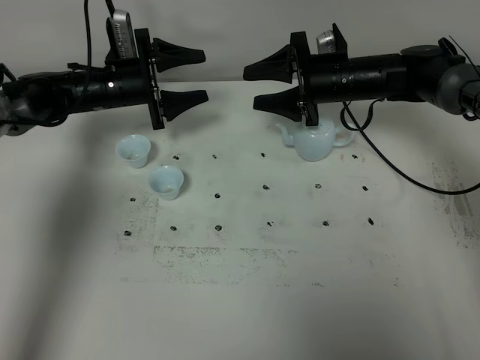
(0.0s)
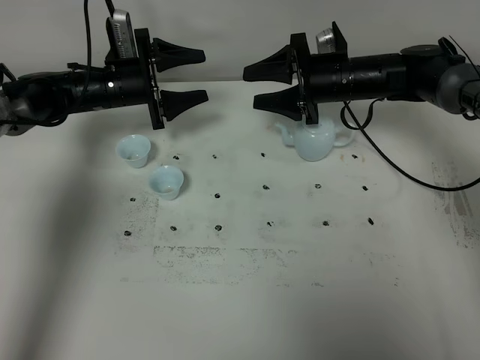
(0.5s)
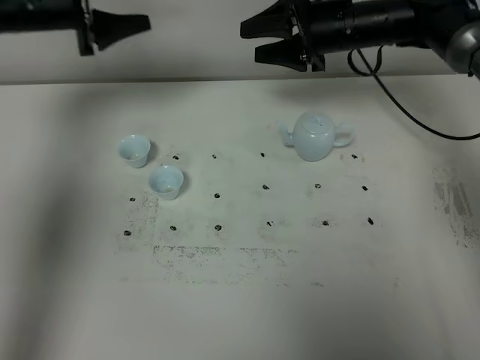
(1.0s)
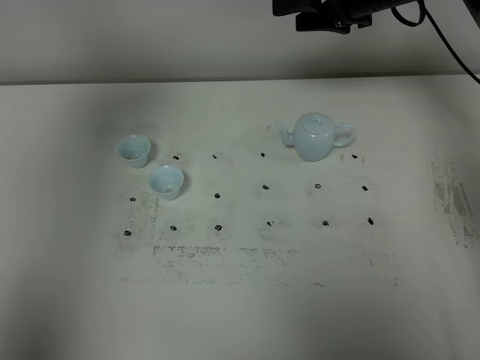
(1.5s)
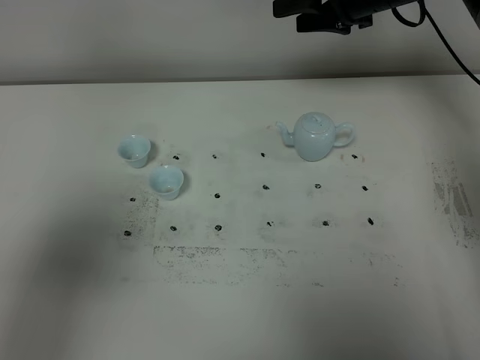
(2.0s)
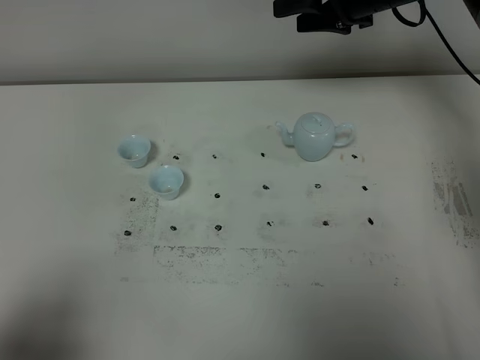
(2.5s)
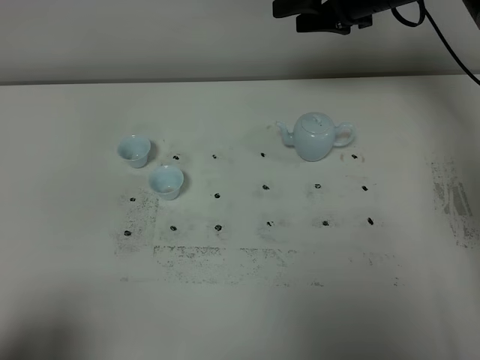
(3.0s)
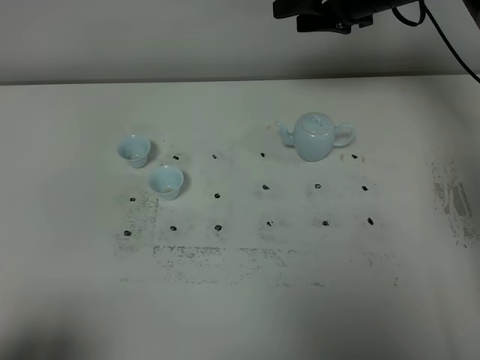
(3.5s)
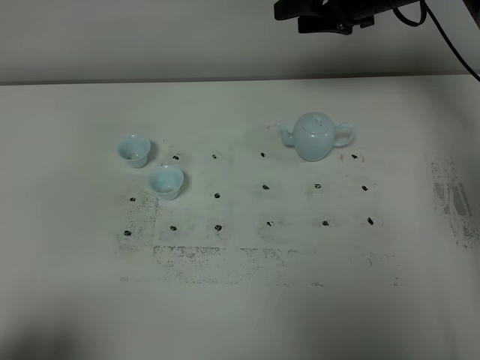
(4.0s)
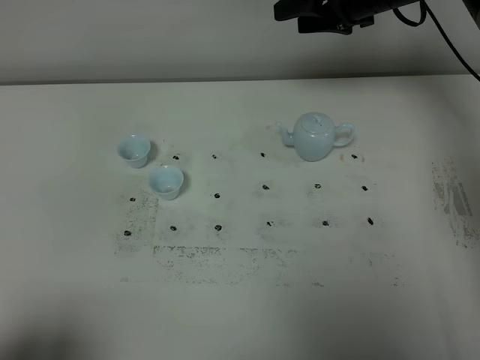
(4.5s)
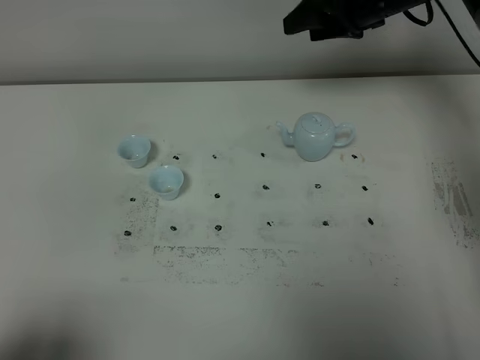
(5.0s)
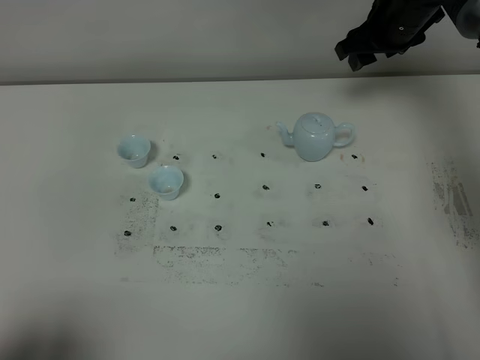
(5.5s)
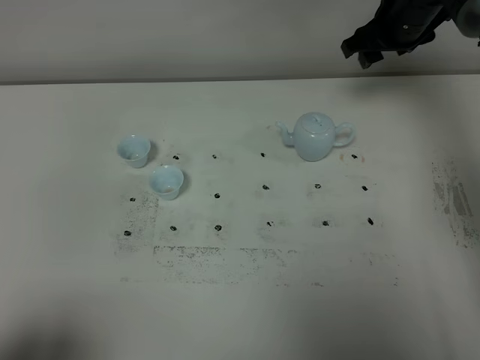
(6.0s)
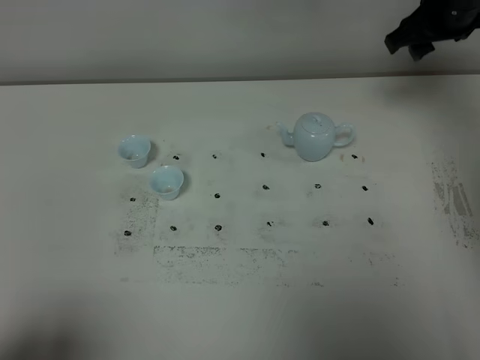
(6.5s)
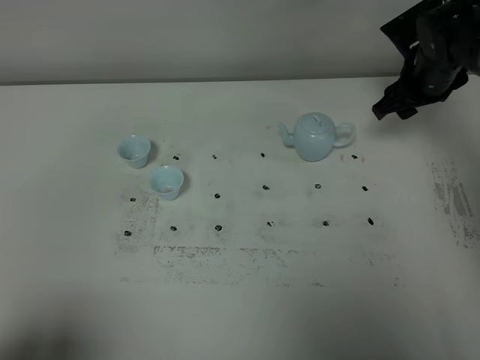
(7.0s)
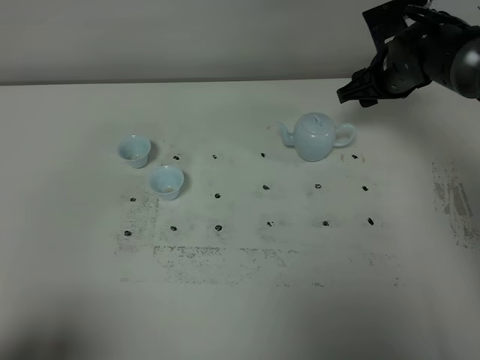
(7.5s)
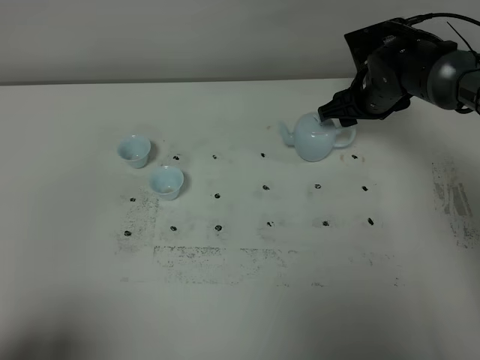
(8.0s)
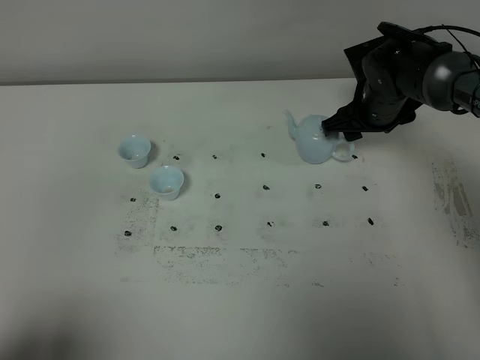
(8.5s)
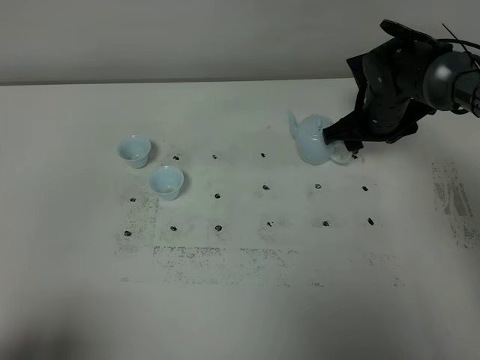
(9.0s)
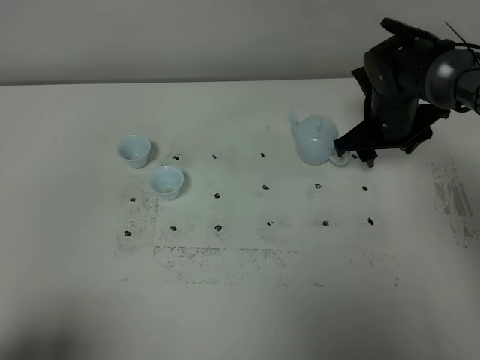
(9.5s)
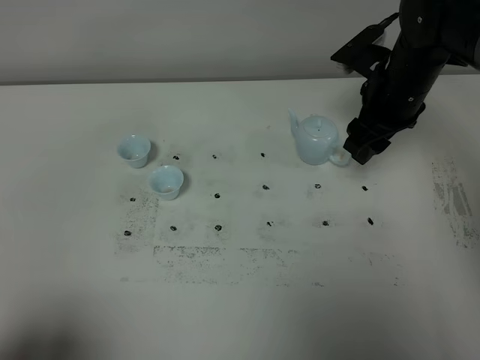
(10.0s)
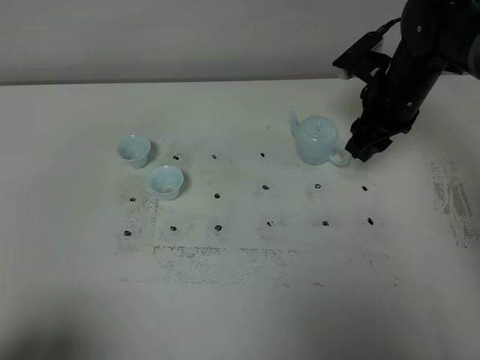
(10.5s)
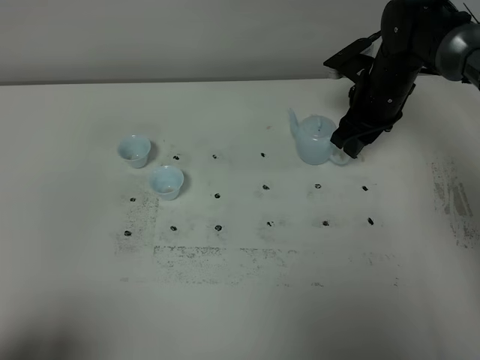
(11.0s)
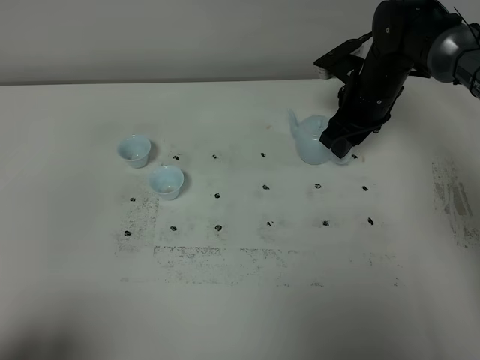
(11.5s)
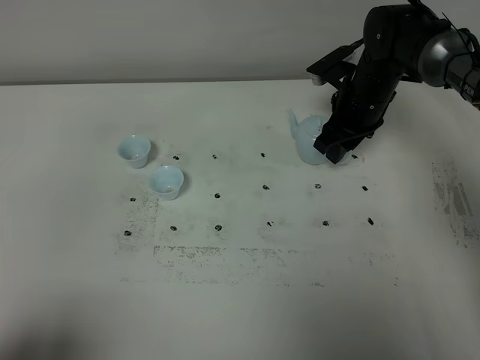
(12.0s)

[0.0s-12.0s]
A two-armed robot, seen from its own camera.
Task of the whole recording: grasp the blue porcelain teapot and pour the tea into the two blue porcelain teacups one by one, put the blue porcelain teapot back in its original place.
0.0s to 2.0s: The right gripper goes roughly 10 cm upward. The left gripper heads backward and upward, covering roughly 50 cm.
2.0s to 4.0s: The left gripper is displaced downward and backward by some 15 cm.
4.0s to 6.0s: The right gripper moves about 5 cm.
6.0s to 8.0s: The right gripper heads downward, covering approximately 10 cm.
8.0s to 10.0s: The right gripper heads upward and backward, covering approximately 10 cm.
10.0s to 12.0s: The right gripper goes some 10 cm downward and forward.

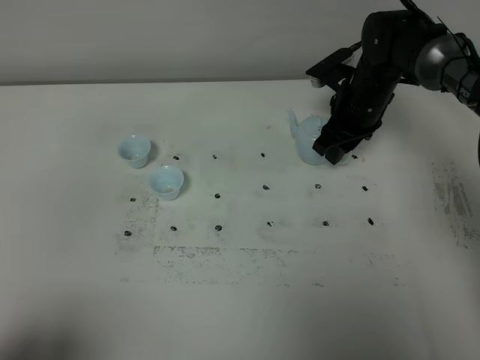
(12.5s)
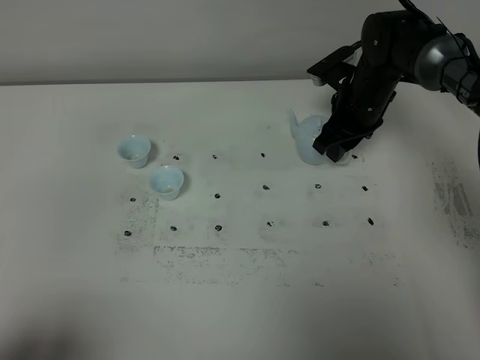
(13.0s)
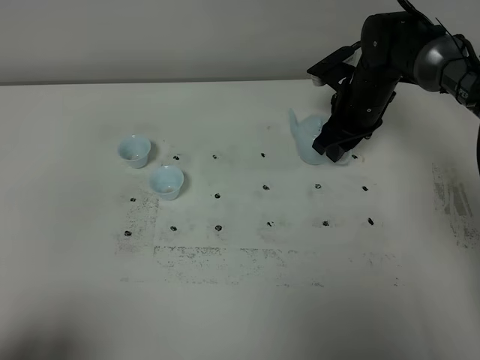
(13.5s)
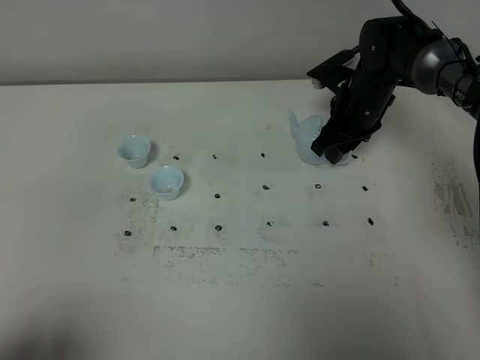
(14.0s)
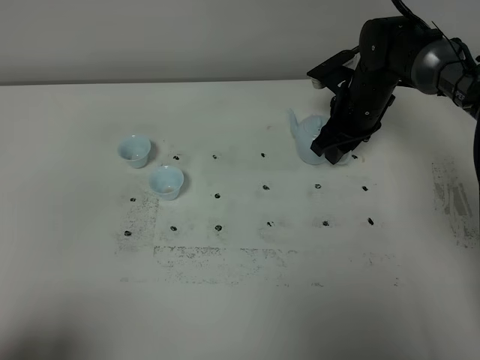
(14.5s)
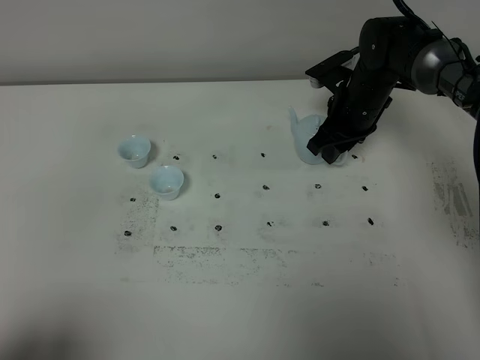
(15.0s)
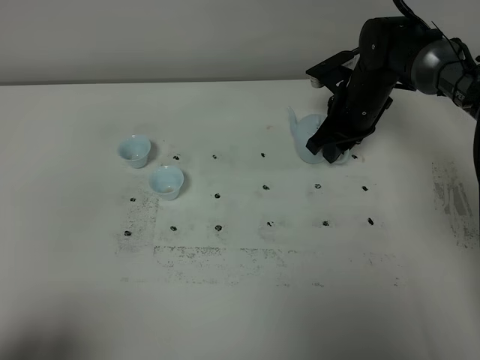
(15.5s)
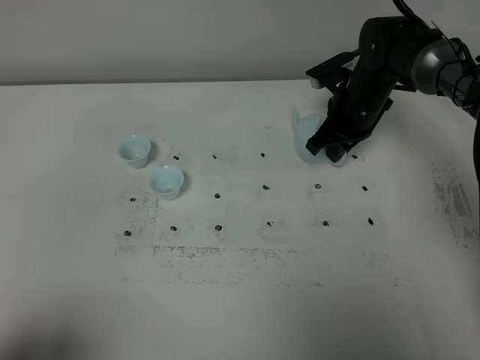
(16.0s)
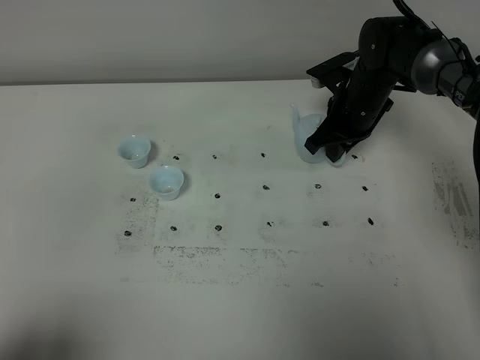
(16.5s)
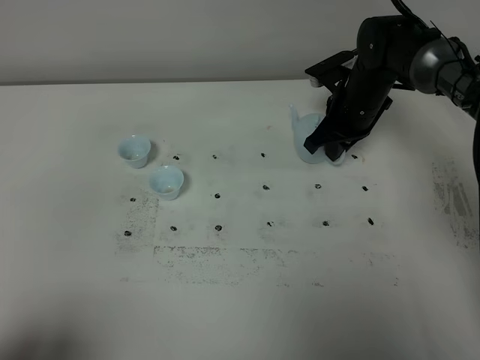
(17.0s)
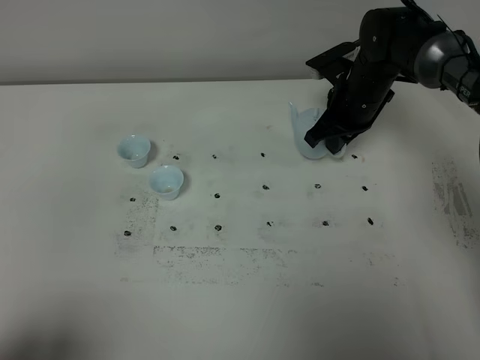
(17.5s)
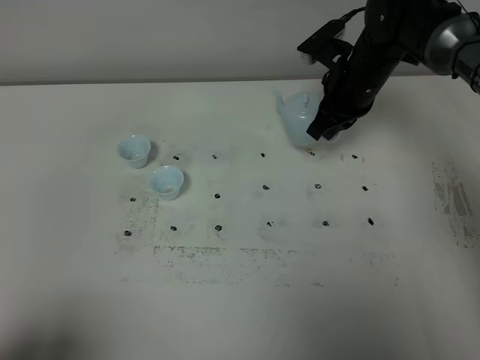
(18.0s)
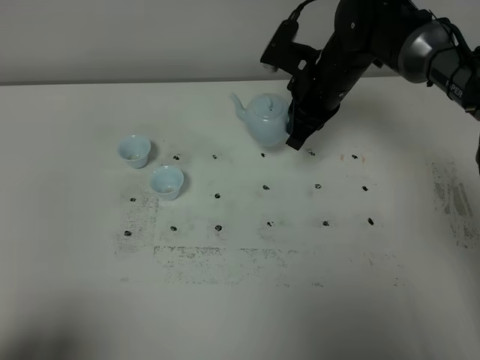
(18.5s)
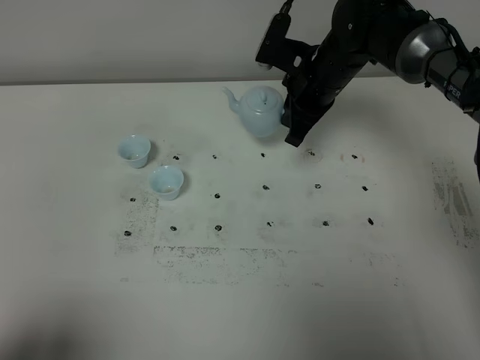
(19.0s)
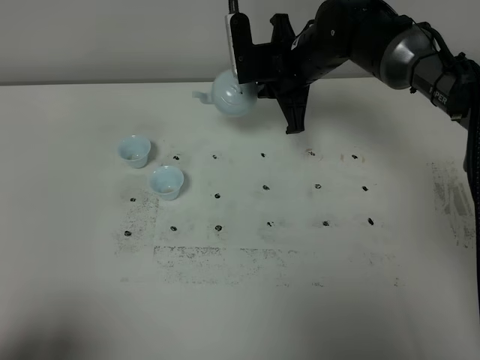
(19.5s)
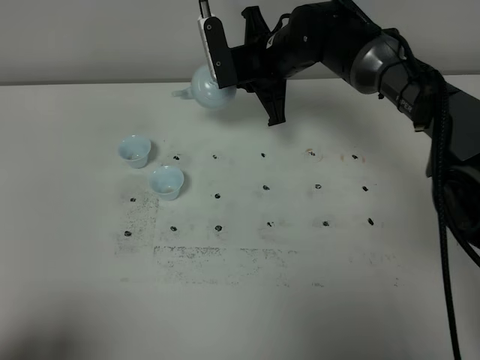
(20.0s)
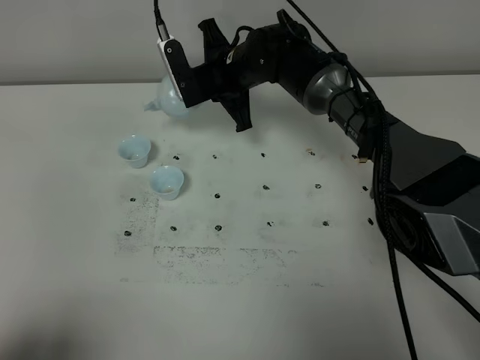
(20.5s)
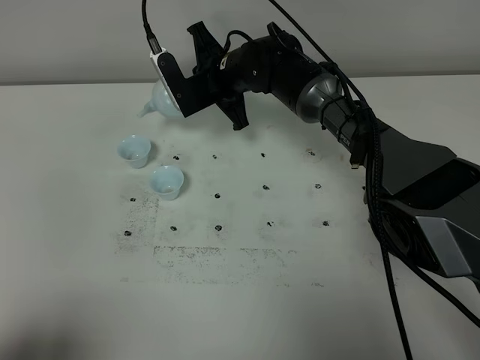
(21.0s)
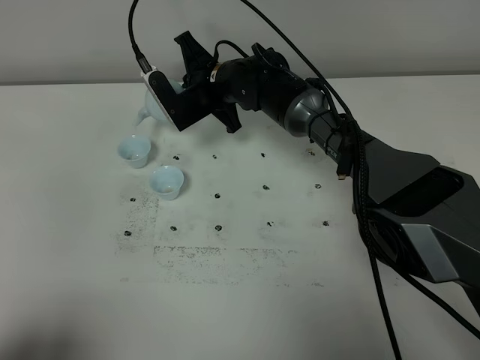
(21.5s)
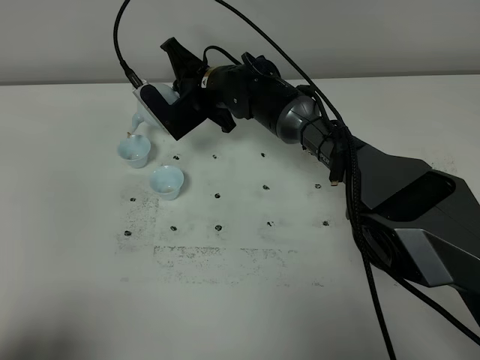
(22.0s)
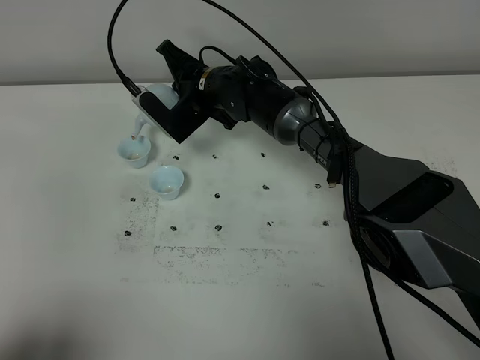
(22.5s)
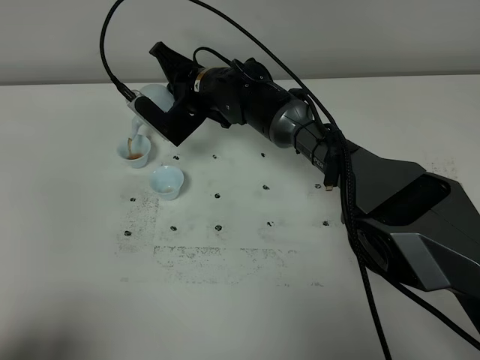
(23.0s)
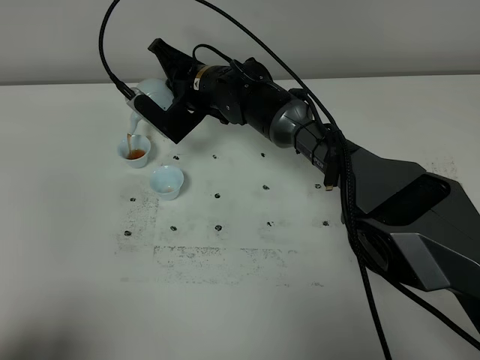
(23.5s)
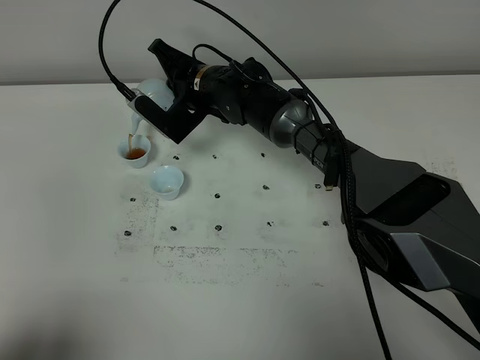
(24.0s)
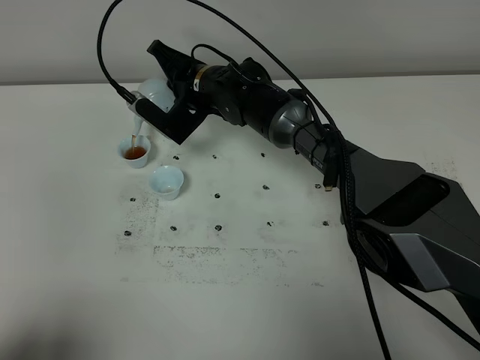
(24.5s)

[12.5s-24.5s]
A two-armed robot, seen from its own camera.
Task of the whole recording: grasp the blue porcelain teapot and pour the tea into the two blue porcelain teacups one by one, put the blue porcelain teapot back in its original place.
Step, 12.5s to 17.5s: Pick up the teapot with the right gripper.
12.5s to 14.5s: The two grippers keep their place.
14.5s to 16.5s: The right gripper closes.
16.5s to 18.5s: The right gripper is displaced upward and to the left by roughly 10 cm.
18.5s to 20.5s: The right gripper is displaced to the left by approximately 10 cm.
22.5s to 24.5s: The grippers move only a little.

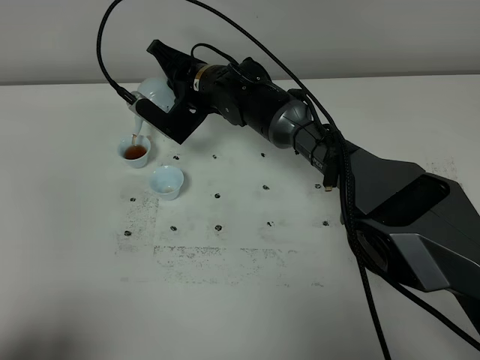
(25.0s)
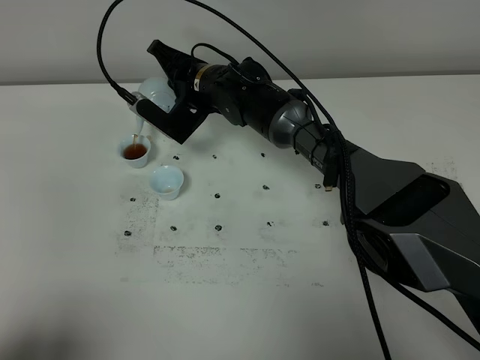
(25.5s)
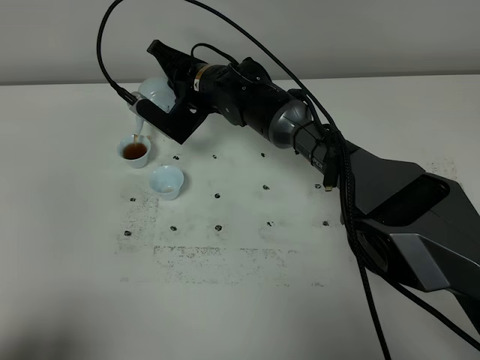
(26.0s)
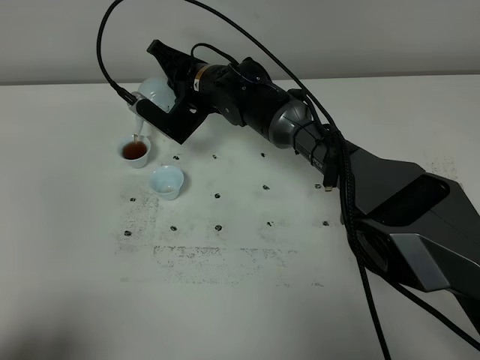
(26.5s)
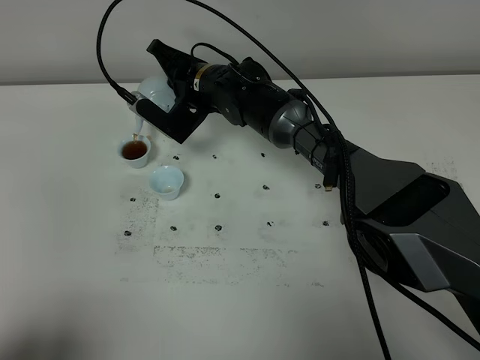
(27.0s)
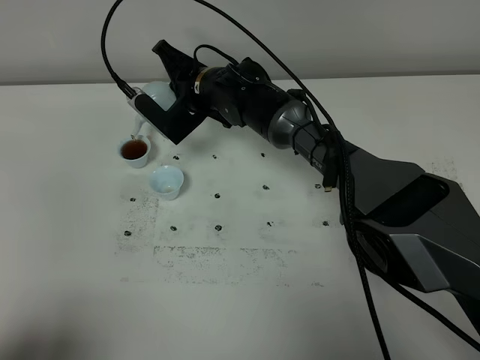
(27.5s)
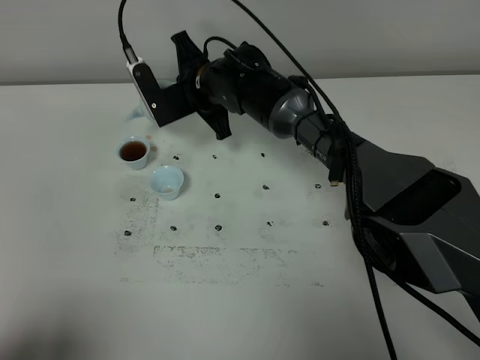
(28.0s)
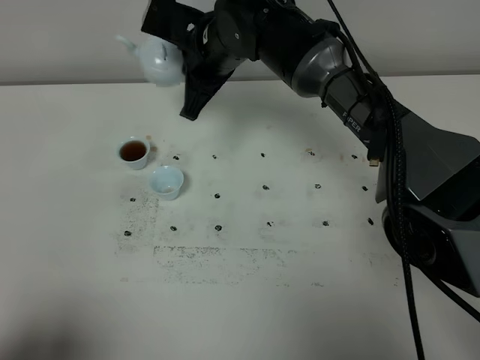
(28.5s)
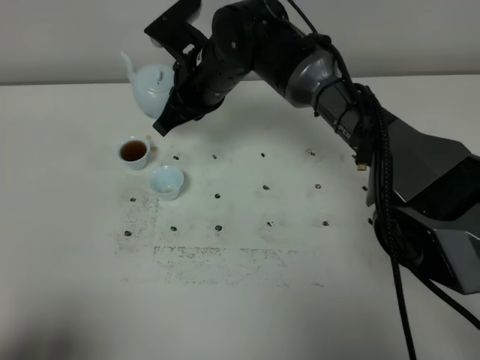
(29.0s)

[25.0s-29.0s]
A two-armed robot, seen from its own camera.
Task of the whole recording: grasp the blue porcelain teapot and pour the tea into the two blue porcelain teacups one by one, put the blue porcelain teapot back in its original place.
25.0s to 27.0s: Both grippers stay put.
27.0s to 29.0s: The right gripper moves upward and backward, approximately 10 cm.
